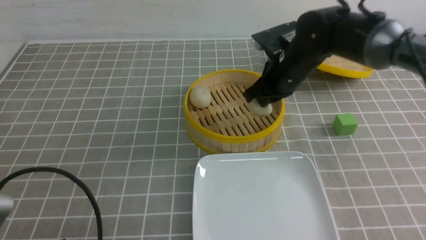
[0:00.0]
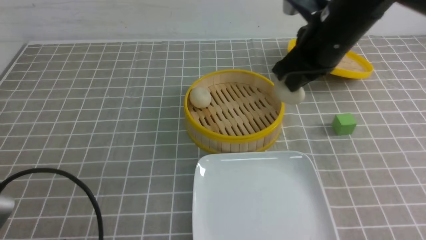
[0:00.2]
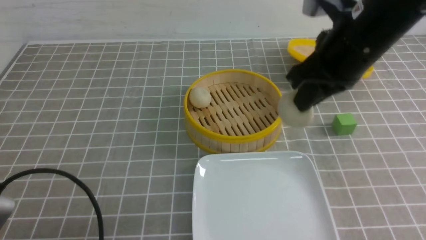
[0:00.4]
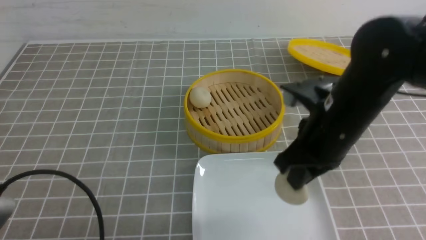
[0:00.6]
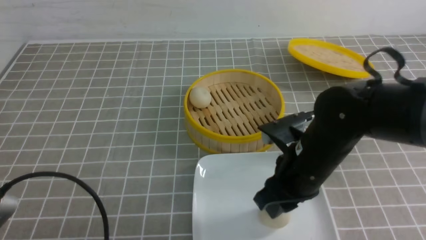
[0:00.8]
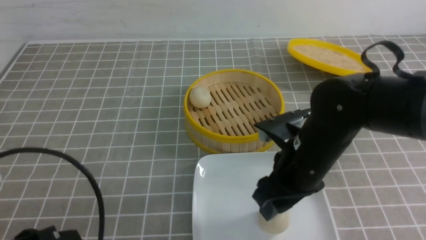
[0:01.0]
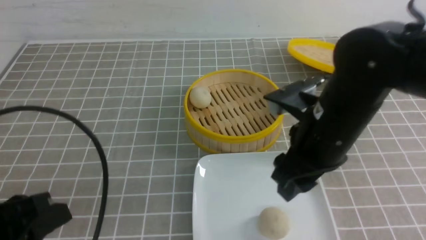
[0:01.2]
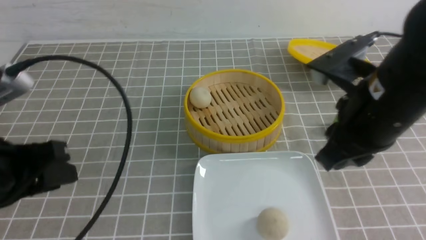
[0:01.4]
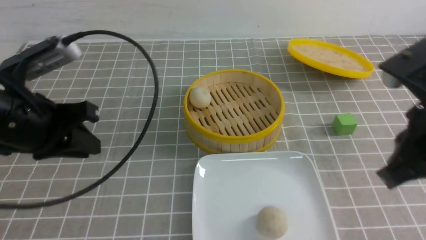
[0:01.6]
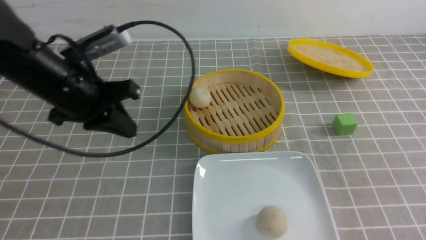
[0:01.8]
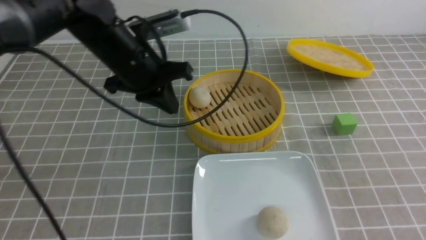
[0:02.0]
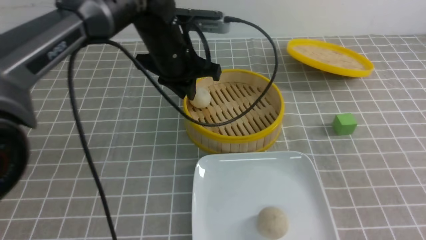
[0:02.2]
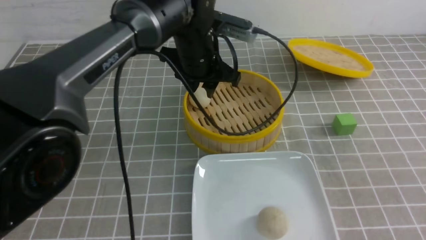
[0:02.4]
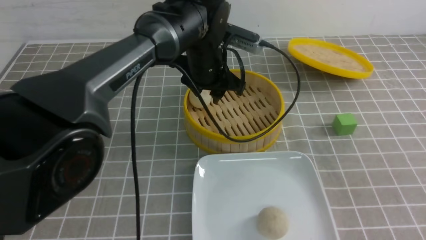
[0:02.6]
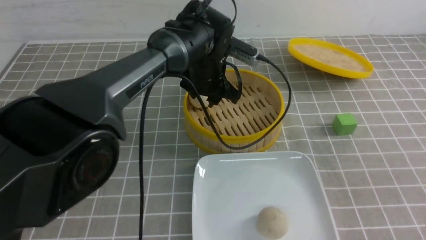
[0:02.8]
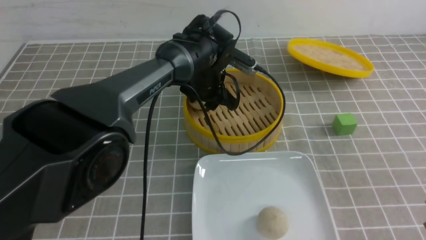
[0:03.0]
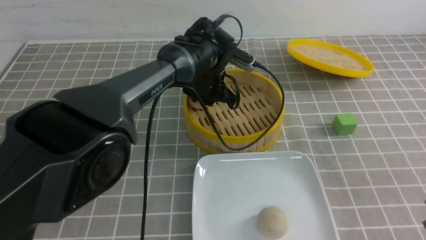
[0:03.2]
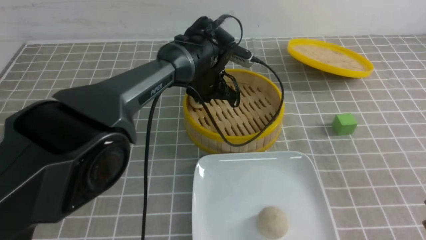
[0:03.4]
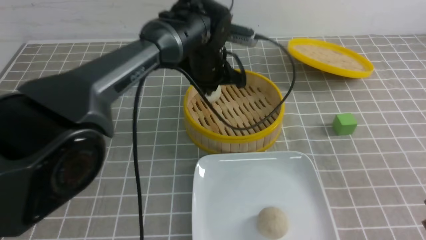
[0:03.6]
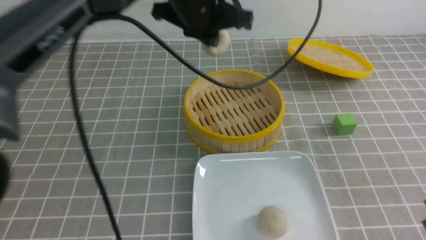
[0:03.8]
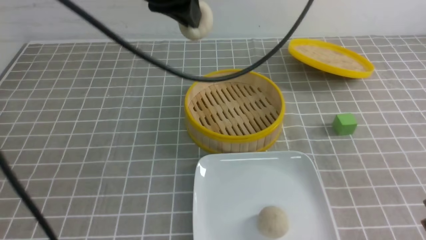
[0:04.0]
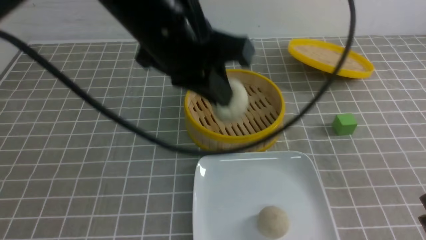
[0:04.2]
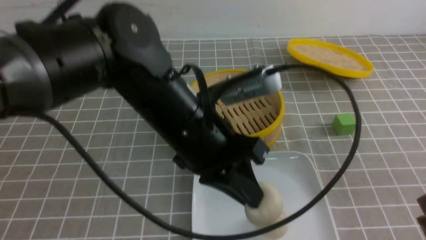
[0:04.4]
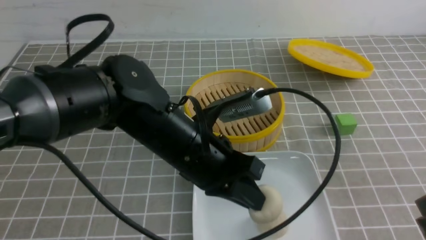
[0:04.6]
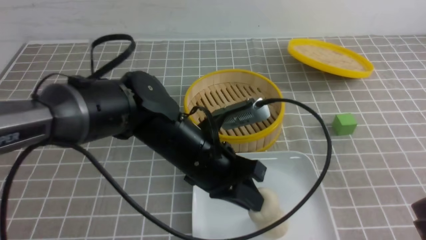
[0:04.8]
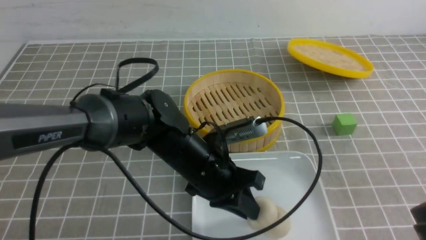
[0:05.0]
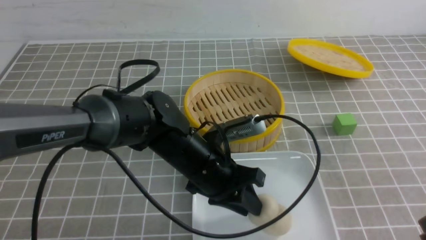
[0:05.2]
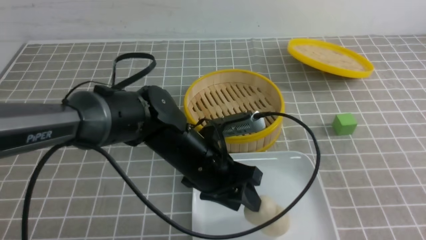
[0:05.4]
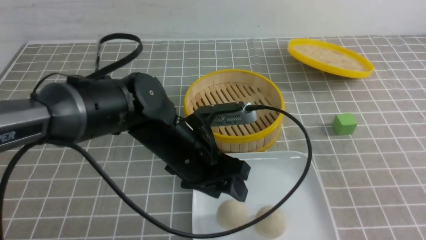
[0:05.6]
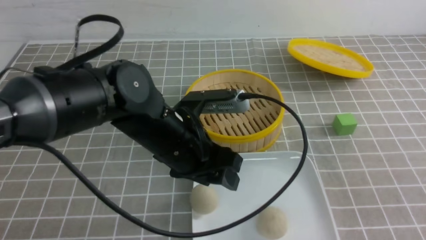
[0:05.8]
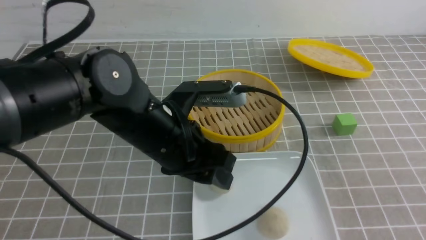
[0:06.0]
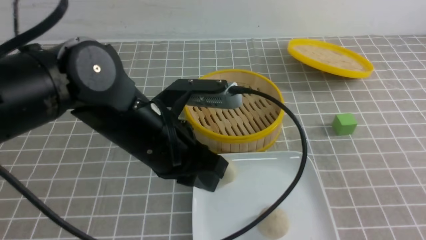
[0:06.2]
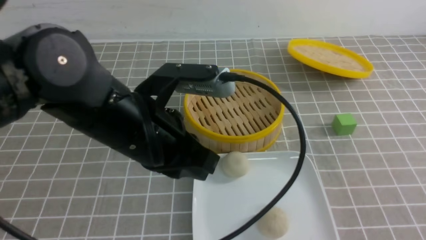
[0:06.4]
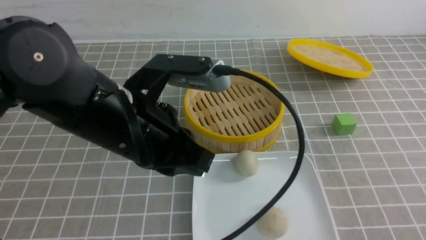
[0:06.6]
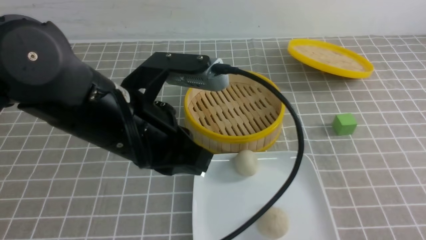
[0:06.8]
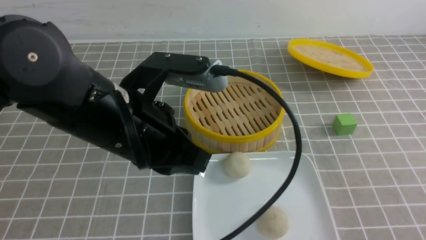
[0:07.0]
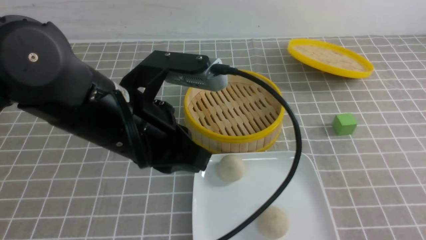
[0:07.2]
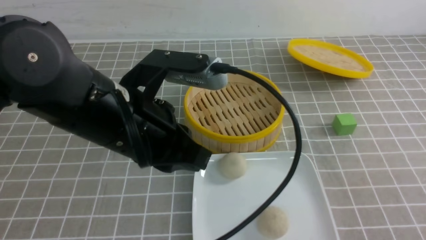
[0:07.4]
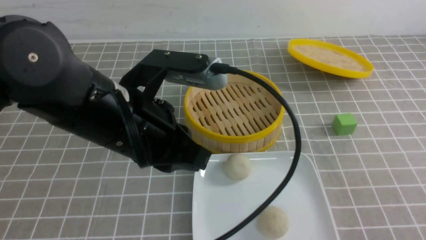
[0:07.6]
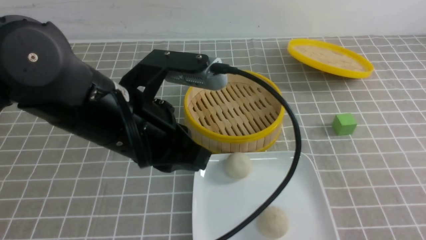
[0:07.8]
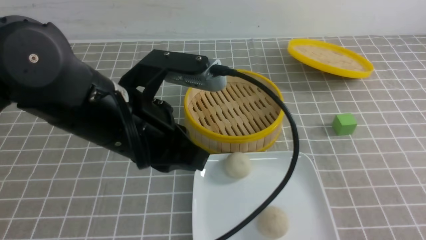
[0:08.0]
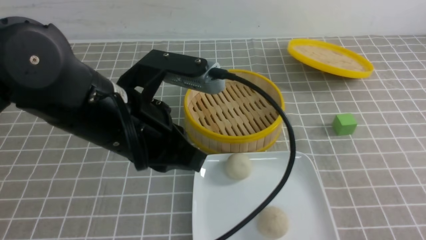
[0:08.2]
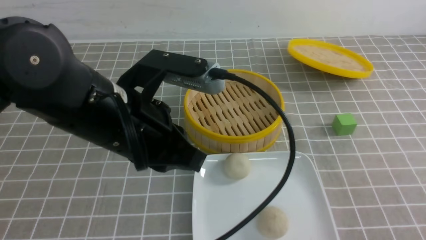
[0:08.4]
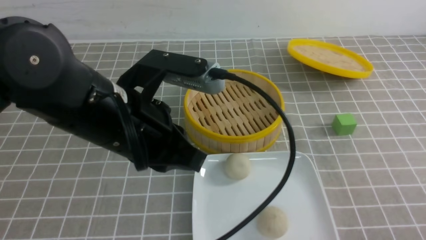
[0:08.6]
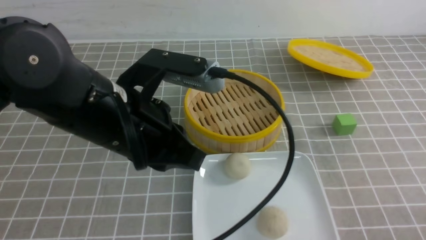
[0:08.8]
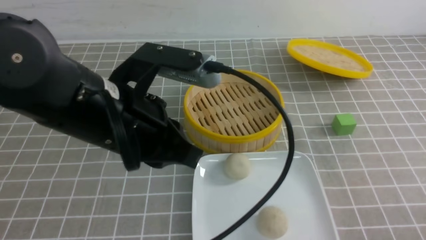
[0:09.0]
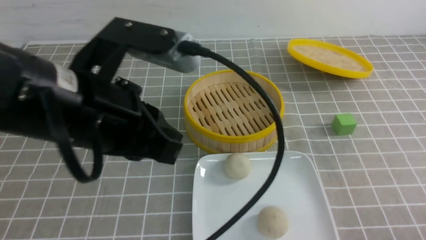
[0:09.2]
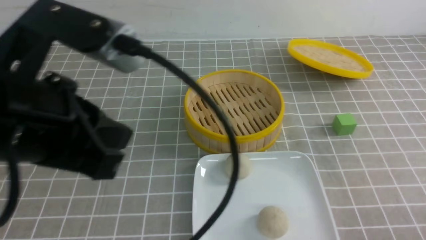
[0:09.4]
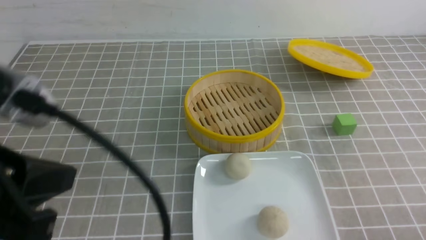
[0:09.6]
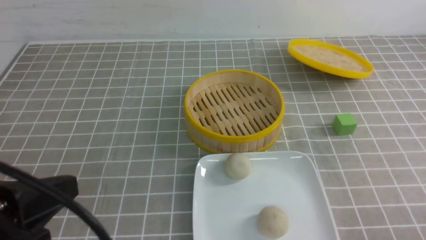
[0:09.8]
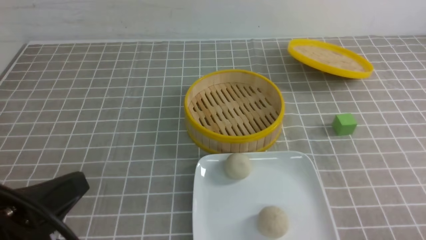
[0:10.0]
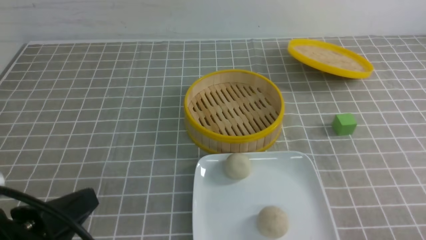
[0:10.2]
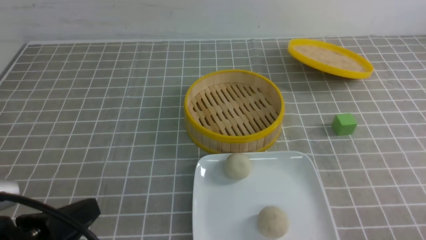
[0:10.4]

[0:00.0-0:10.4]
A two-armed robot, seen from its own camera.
Step, 0:00.0 to 0:01.0: use the right arm to put the steamed stuffed bun into the plate.
Step, 0:01.2 to 0:03.4: use the left arm to grab the steamed stuffed bun that is closest to it.
Step, 0:03.6 to 0:05.2: use the left arm to put the steamed stuffed bun into the plate.
0:00.0 to 0:01.4: The left gripper is displaced upward and forward by about 15 cm. Meanwhile the right gripper shifts approximately 20 cm backward, and opens.
0:01.4 to 0:03.0: The left gripper travels forward and to the right by some 35 cm, and closes, then reopens, while the right gripper moves backward and to the right, some 10 cm, and closes its fingers.
0:03.0 to 0:04.4: The left gripper is displaced backward and upward by roughly 20 cm, and closes up.
0:04.4 to 0:06.0: The left gripper moves some 10 cm downward and comes back, and opens.
0:06.0 to 0:07.4: The left gripper moves upward, approximately 5 cm, and closes its fingers. The right gripper is displaced downward by approximately 5 cm.
0:07.4 to 0:09.0: The right gripper goes approximately 10 cm downward.
0:09.0 to 0:10.4: The left gripper is displaced backward, to the left and downward by about 20 cm.

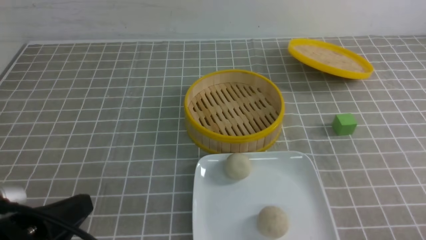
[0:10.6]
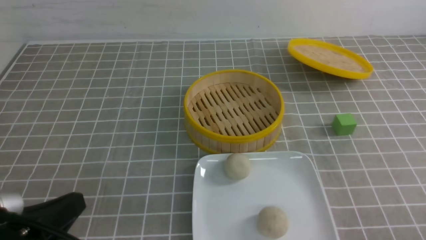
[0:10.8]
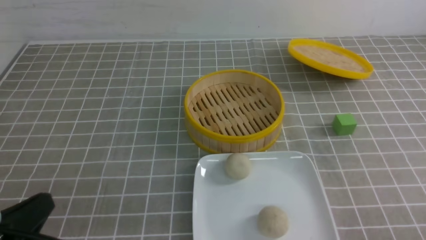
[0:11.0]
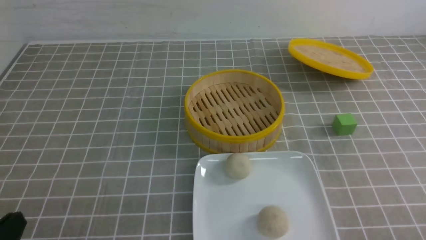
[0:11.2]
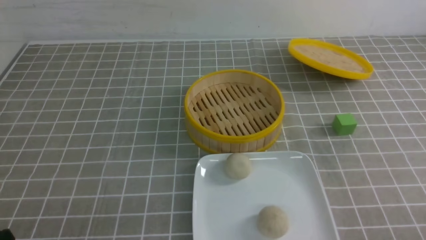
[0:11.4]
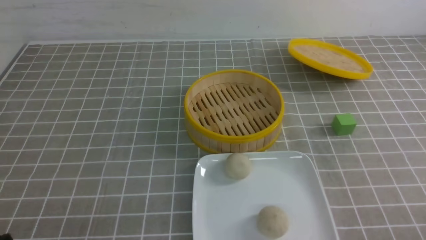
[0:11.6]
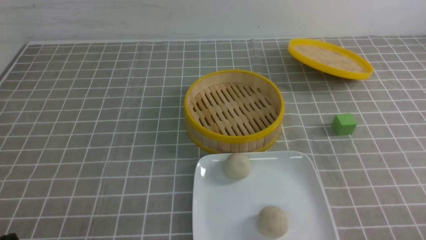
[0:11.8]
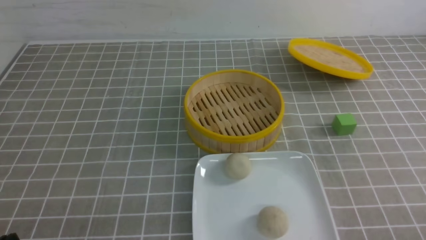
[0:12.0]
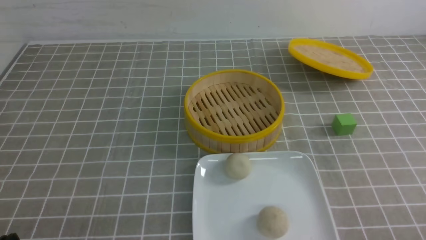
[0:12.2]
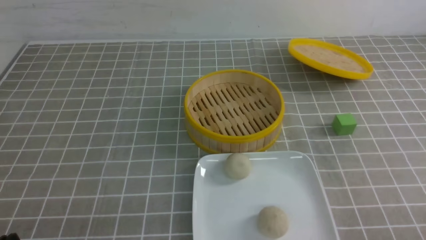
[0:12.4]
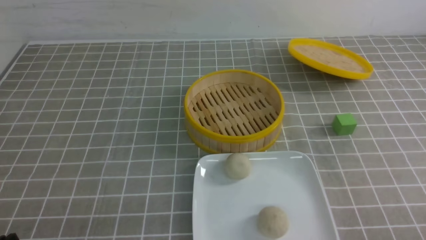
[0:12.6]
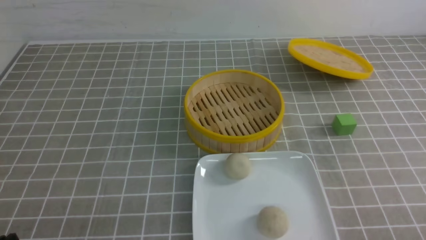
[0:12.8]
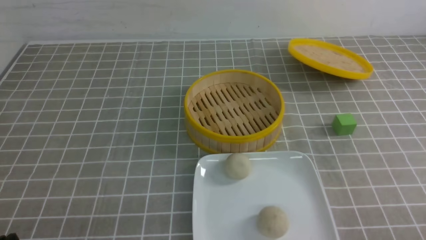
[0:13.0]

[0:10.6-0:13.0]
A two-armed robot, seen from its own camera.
0:10.6 to 0:11.8: The left gripper is displaced downward by approximately 10 cm.
0:11.8 to 0:13.0: The two grippers keep their place.

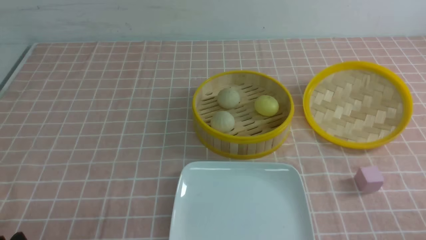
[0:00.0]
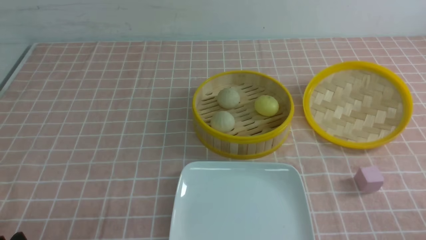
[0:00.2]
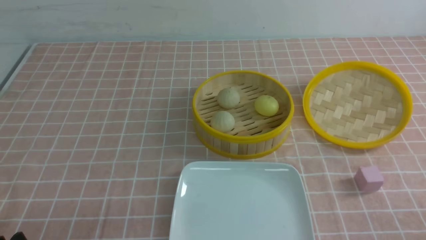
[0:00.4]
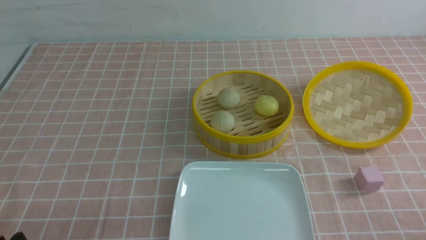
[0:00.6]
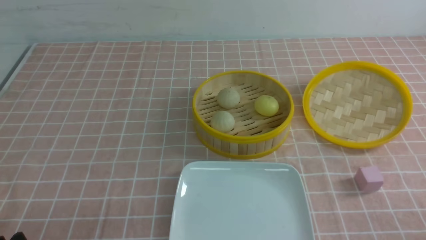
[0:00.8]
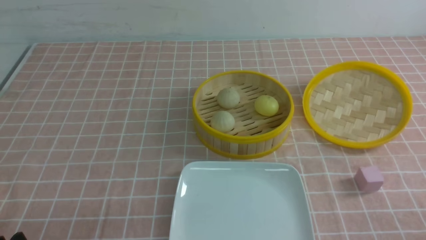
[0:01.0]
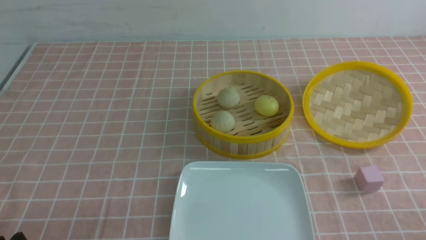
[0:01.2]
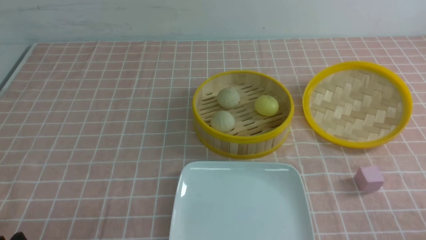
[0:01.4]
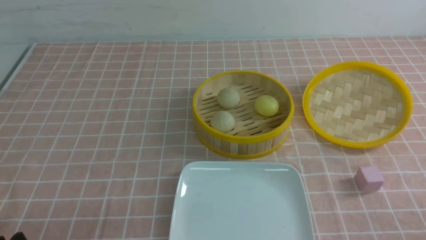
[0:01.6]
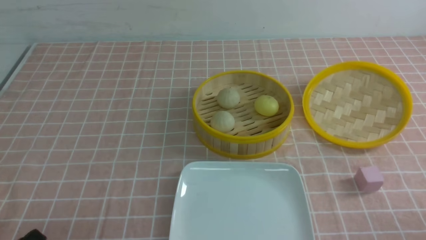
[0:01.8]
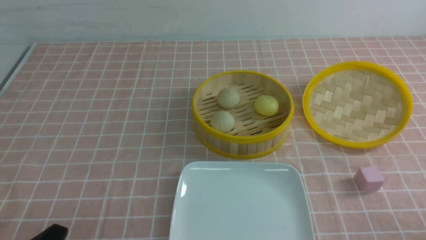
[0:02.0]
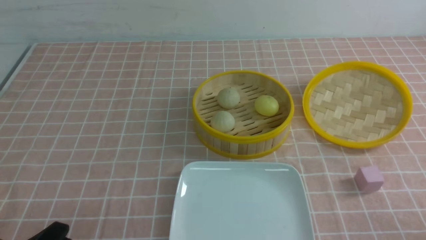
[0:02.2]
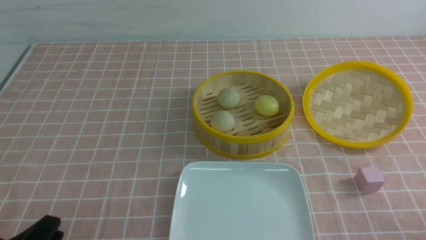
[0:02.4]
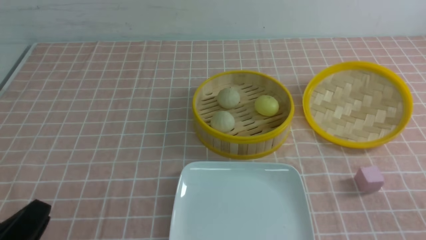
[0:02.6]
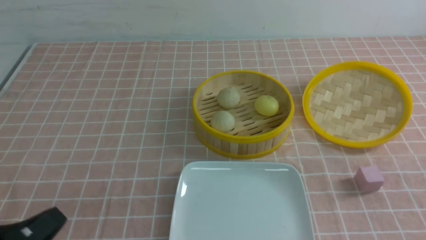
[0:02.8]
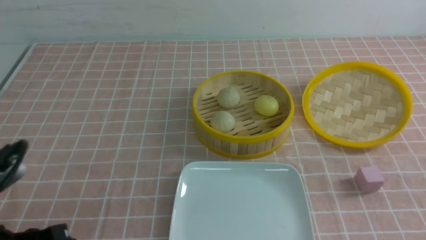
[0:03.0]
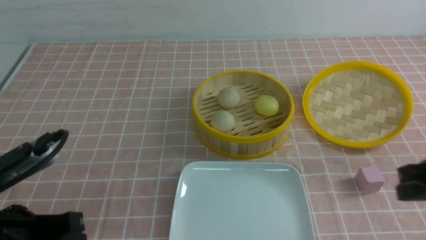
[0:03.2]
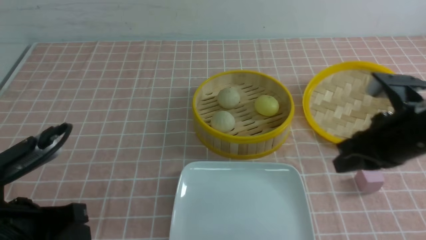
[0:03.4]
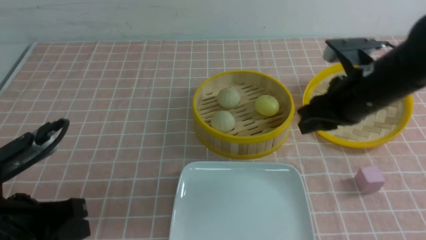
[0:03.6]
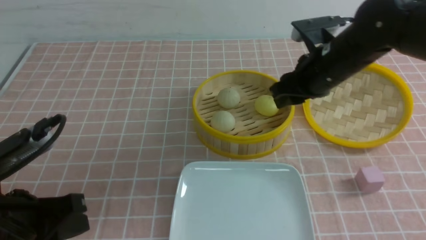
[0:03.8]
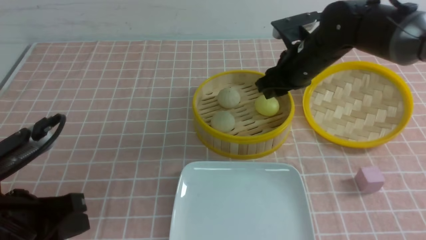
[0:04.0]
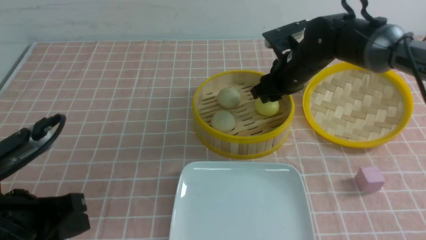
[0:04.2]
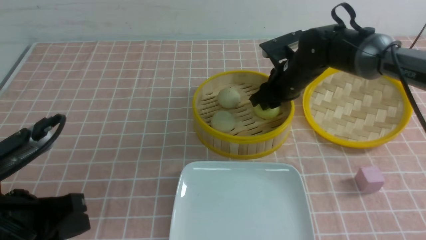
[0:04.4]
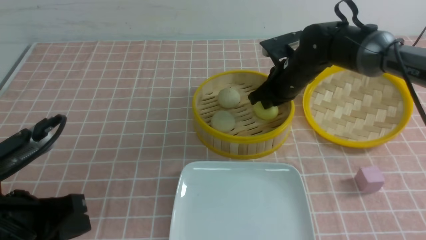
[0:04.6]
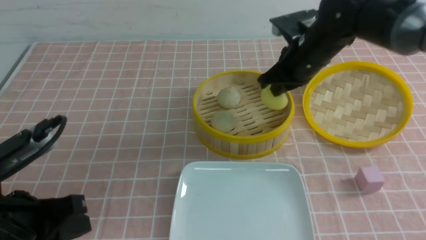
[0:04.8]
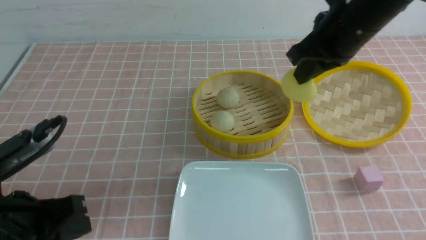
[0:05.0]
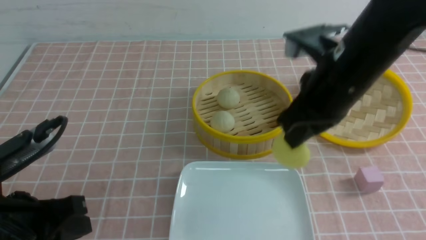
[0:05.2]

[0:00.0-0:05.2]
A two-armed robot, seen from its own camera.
Step, 0:00.0 to 0:04.6: use the right arm to grab the steamed stuffed bun that is closest to it.
0:01.8 to 0:03.4: The right gripper shifts approximately 25 cm forward, upward and to the left, and closes up, while the left gripper moves upward and forward, approximately 10 cm, and closes its fingers.
0:03.4 to 0:05.2: The right gripper shifts roughly 10 cm to the left, reaches approximately 20 cm forward, then returns, and opens, then closes again.
